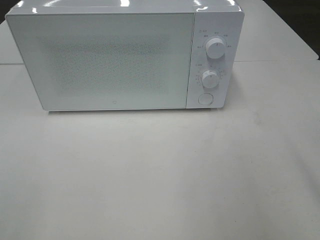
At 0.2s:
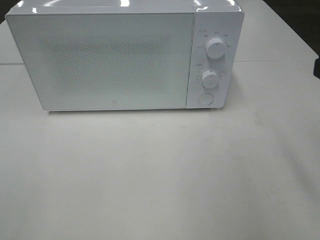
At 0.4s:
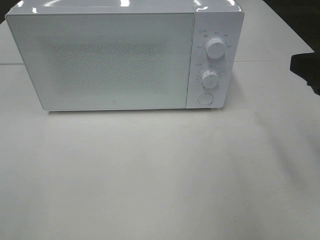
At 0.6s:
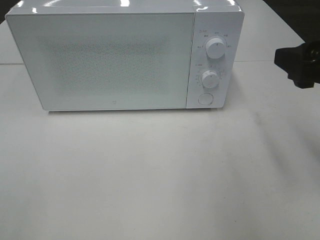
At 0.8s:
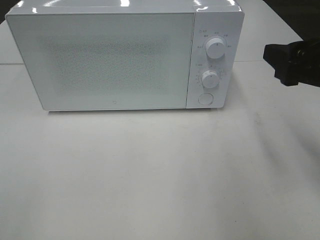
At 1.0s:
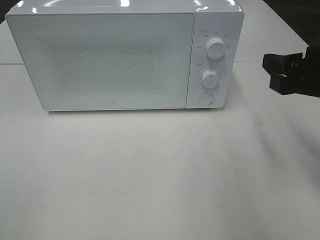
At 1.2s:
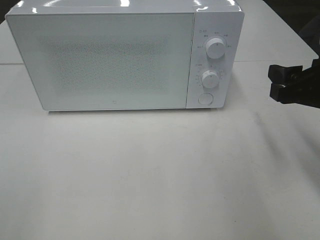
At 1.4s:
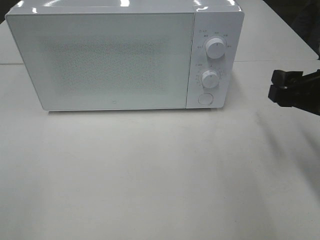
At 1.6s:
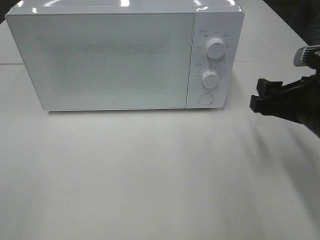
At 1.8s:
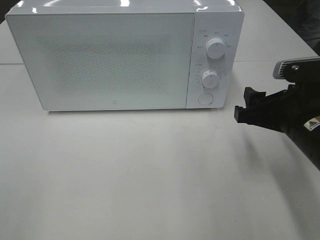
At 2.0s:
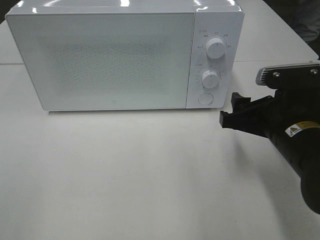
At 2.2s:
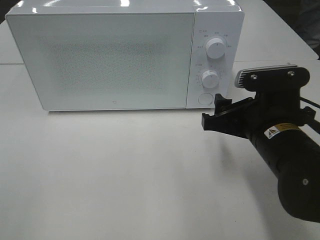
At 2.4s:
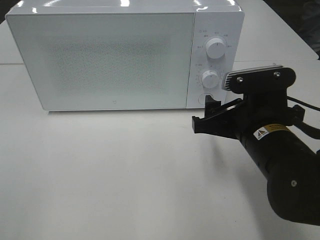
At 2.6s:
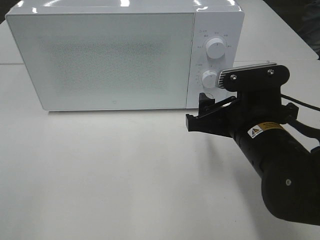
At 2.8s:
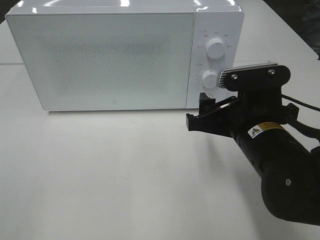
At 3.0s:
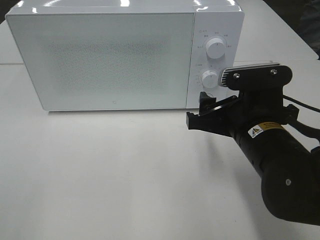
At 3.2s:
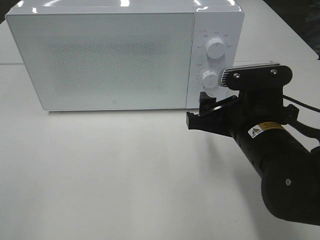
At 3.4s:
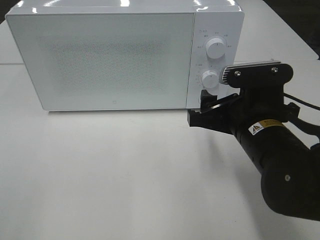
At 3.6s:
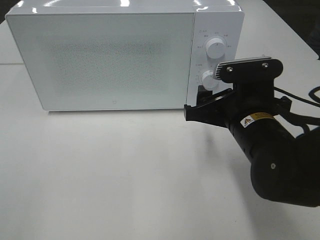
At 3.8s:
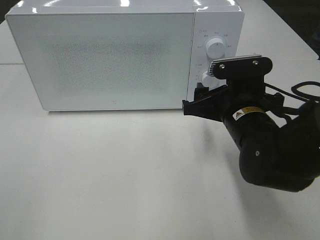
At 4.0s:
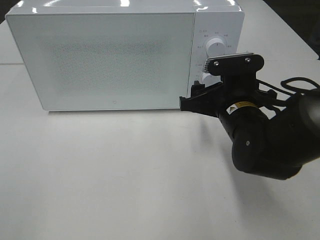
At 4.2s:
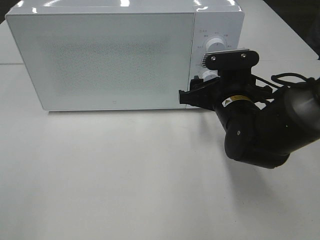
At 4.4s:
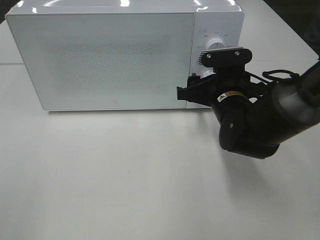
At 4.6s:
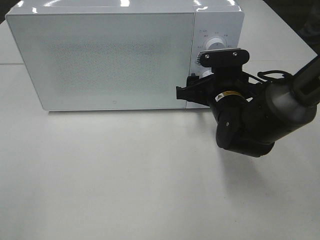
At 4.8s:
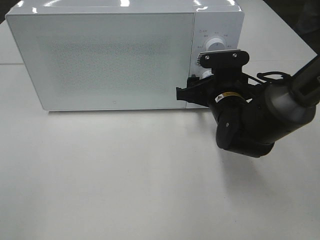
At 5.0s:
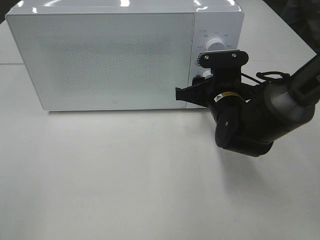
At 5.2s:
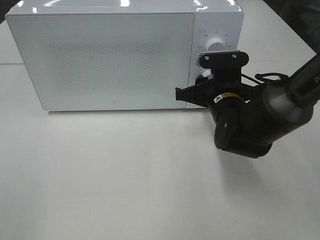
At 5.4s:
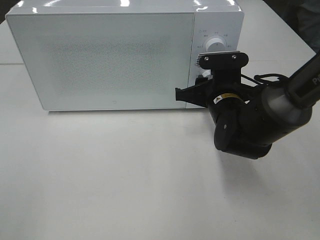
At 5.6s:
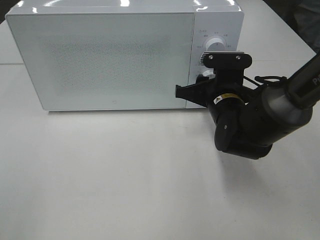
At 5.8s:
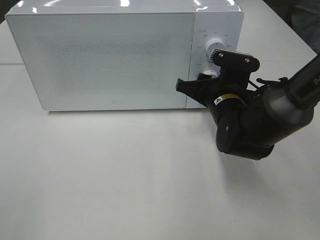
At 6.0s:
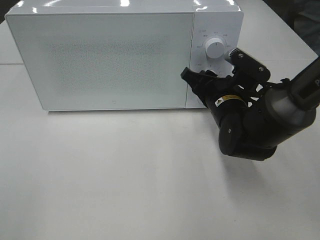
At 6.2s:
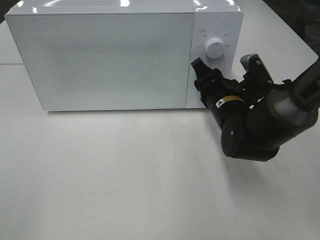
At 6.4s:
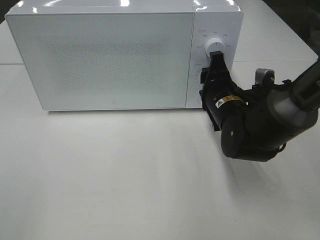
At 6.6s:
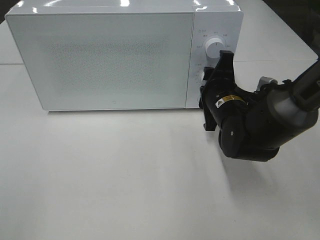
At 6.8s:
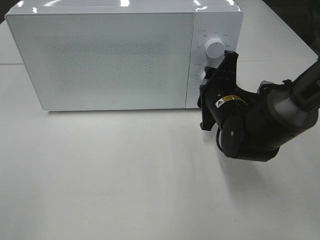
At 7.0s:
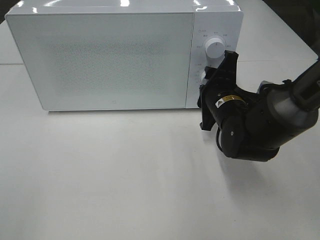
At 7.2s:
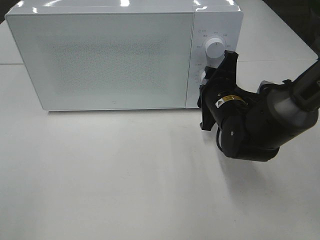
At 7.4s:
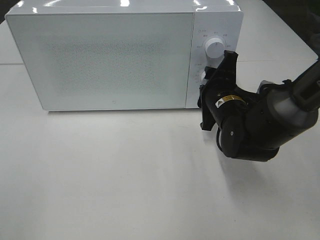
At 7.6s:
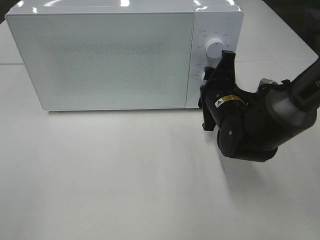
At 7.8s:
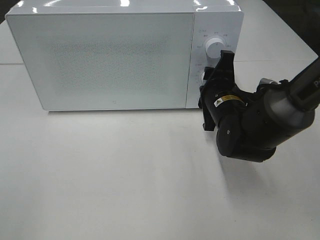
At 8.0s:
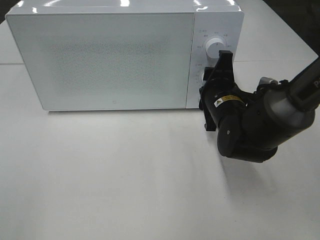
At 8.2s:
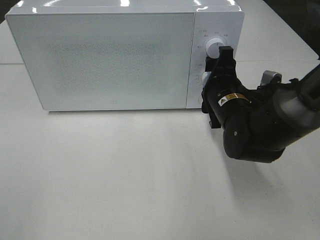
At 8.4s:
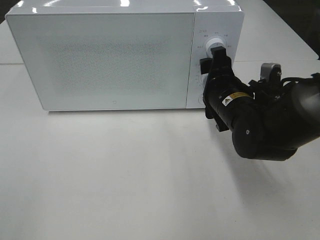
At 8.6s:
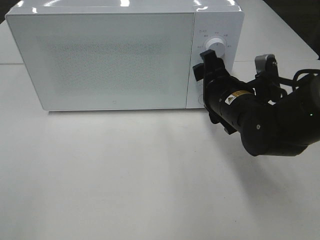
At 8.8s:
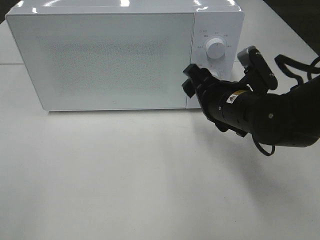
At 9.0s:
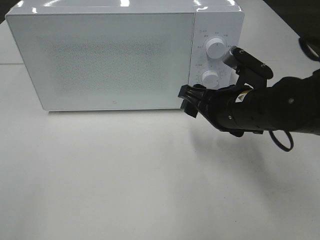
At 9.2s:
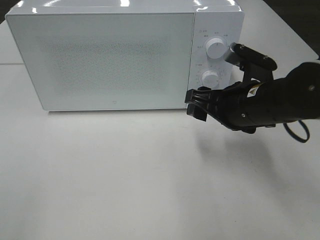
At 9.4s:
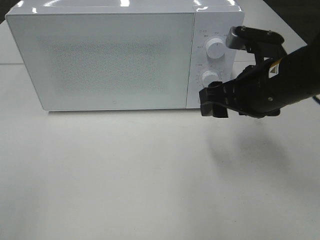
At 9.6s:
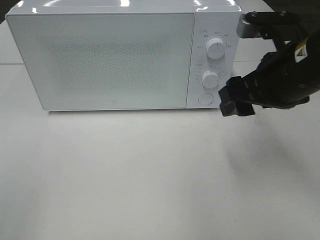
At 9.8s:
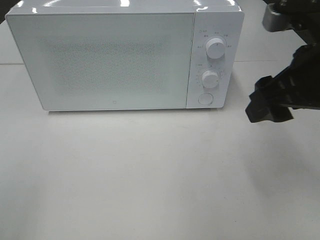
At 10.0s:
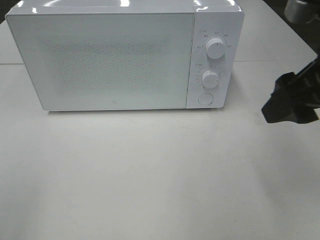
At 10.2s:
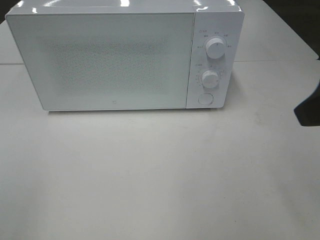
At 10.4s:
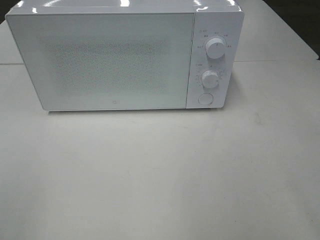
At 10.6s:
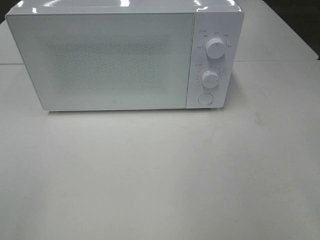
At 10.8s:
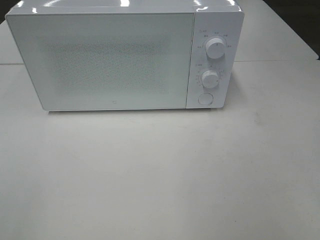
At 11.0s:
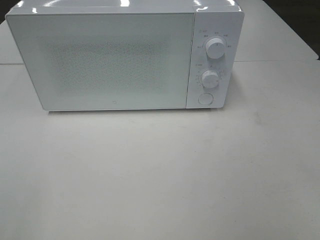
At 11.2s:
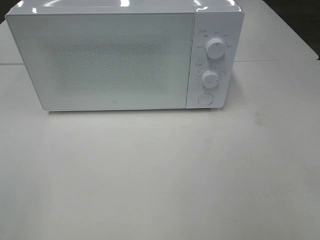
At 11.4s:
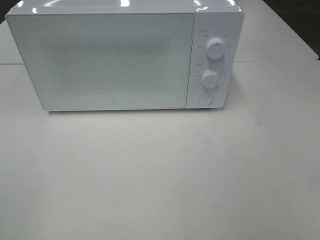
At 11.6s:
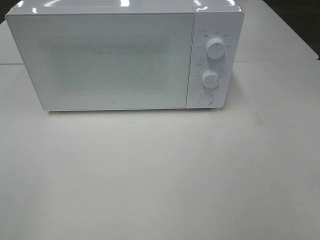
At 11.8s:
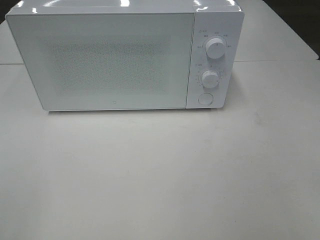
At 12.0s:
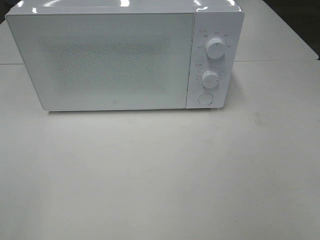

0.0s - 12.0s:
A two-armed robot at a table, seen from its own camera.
Task of the whole recording: Heat the burger.
Step, 0.0s - 8.2s: Right hand: twist timer button.
0.0s - 1.6s: The right gripper goes about 15 cm downward and forward.
1.6s - 3.0s: The right gripper is displaced to the left by approximately 10 cm.
3.0s - 4.4s: The right gripper heads forward, covering about 10 cm.
4.4s - 6.0s: The right gripper closes up.
7.6s - 9.0s: The right gripper is displaced backward by approximately 5 cm, and opens up.
9.0s - 10.4s: The right gripper moves upward, backward and to the right, approximately 25 cm.

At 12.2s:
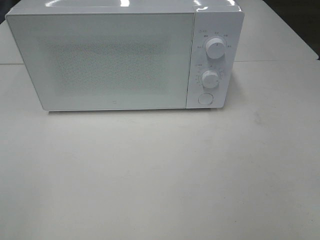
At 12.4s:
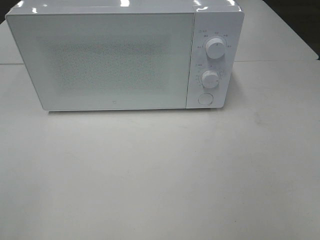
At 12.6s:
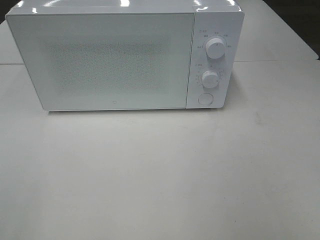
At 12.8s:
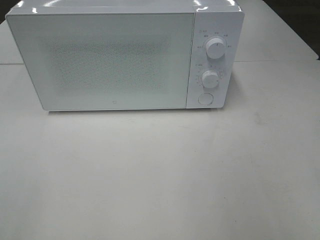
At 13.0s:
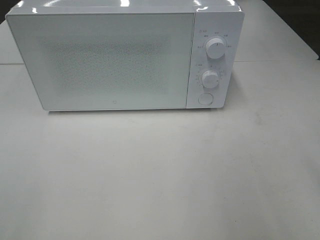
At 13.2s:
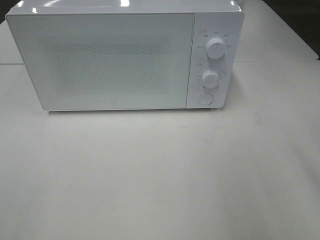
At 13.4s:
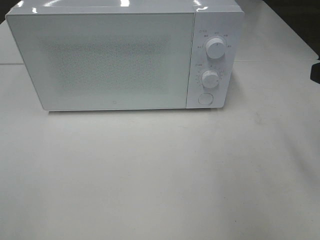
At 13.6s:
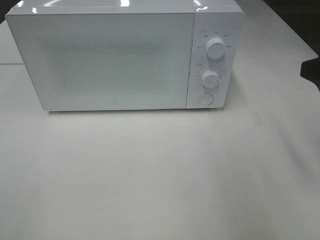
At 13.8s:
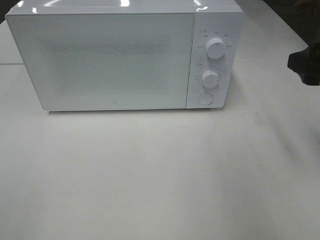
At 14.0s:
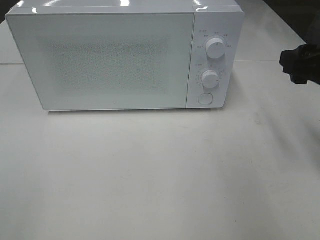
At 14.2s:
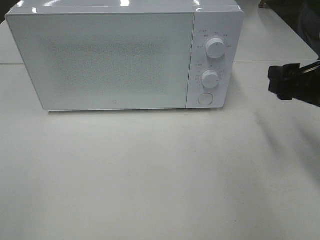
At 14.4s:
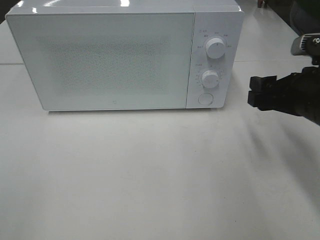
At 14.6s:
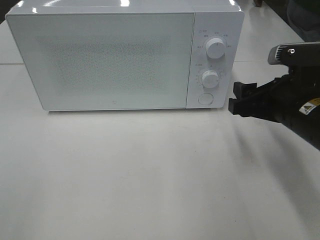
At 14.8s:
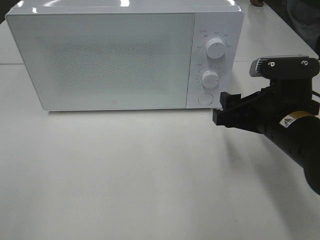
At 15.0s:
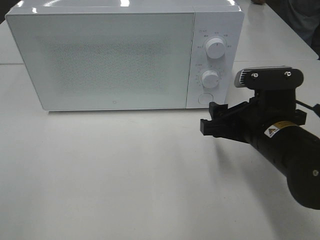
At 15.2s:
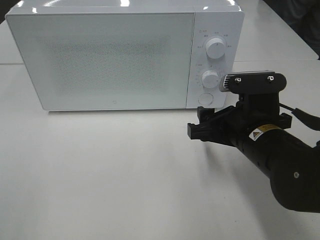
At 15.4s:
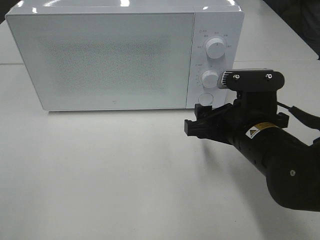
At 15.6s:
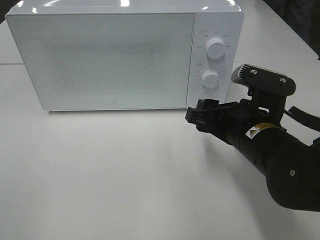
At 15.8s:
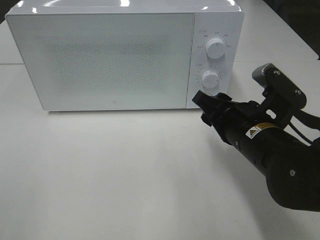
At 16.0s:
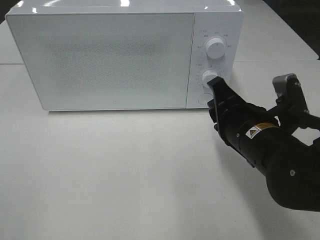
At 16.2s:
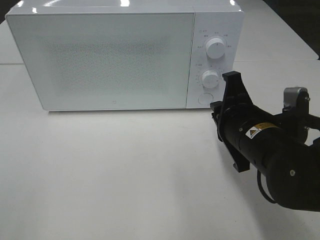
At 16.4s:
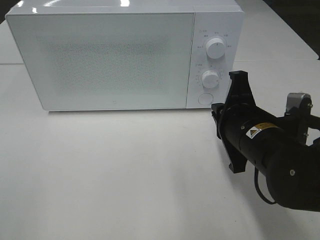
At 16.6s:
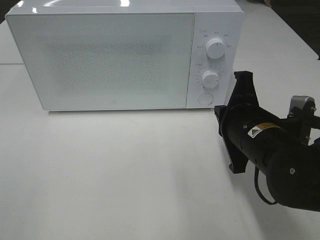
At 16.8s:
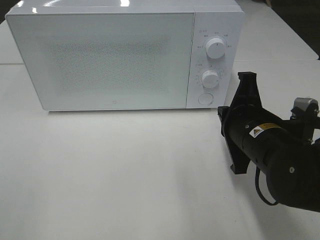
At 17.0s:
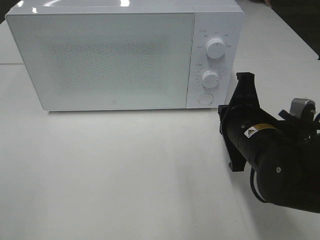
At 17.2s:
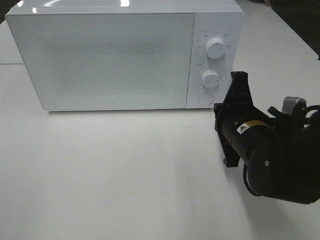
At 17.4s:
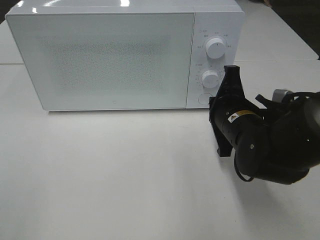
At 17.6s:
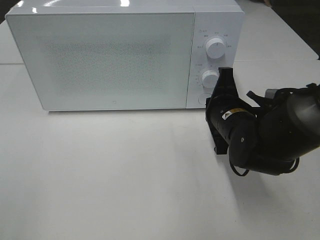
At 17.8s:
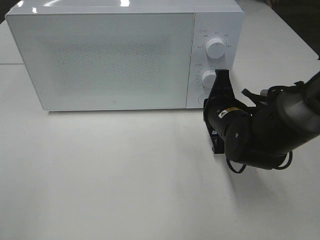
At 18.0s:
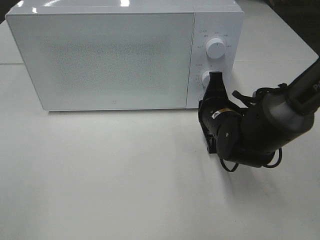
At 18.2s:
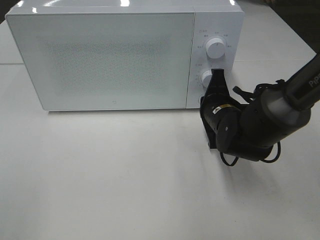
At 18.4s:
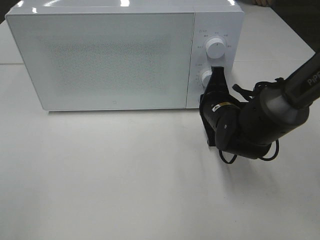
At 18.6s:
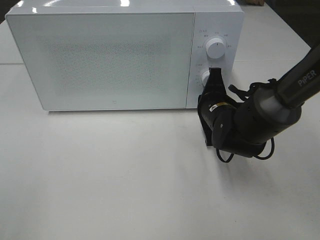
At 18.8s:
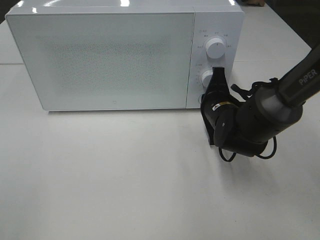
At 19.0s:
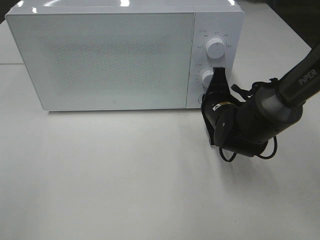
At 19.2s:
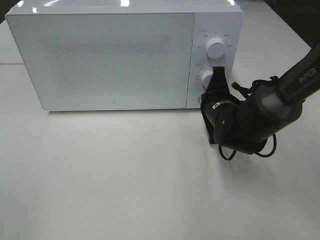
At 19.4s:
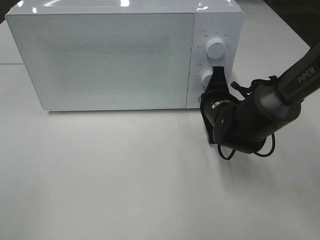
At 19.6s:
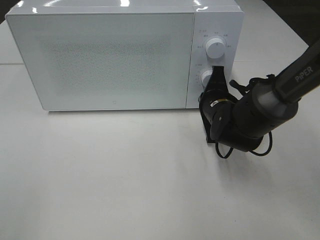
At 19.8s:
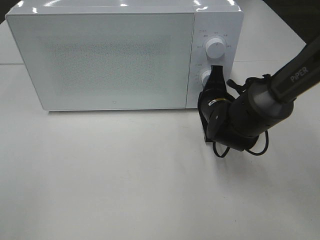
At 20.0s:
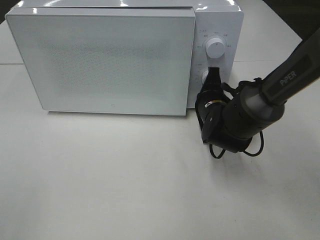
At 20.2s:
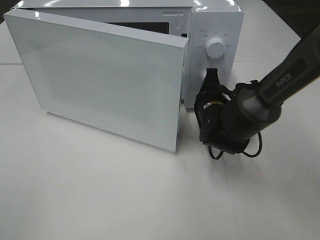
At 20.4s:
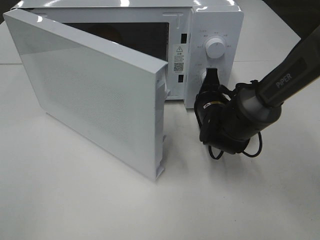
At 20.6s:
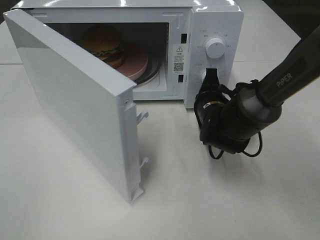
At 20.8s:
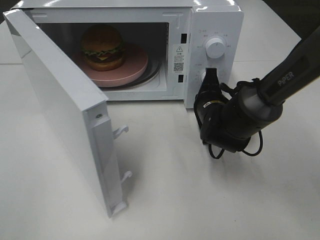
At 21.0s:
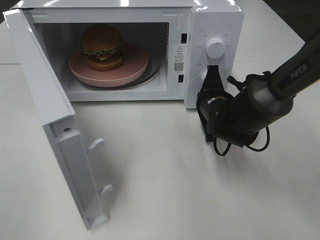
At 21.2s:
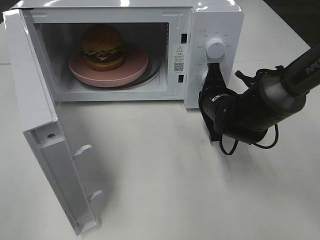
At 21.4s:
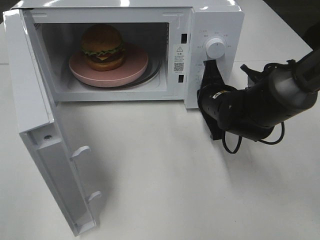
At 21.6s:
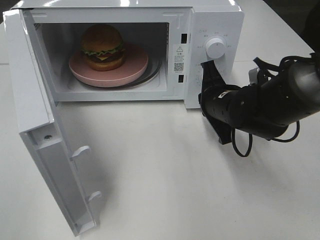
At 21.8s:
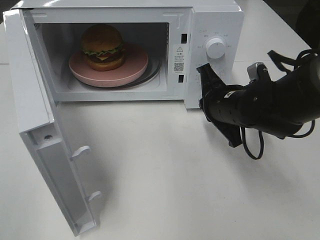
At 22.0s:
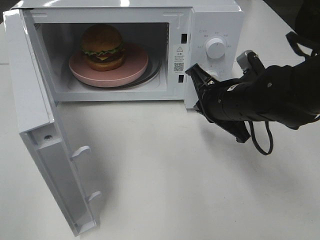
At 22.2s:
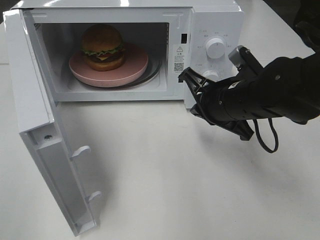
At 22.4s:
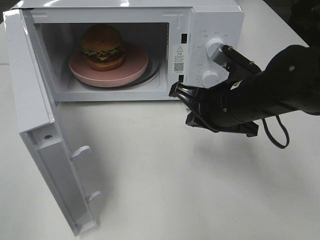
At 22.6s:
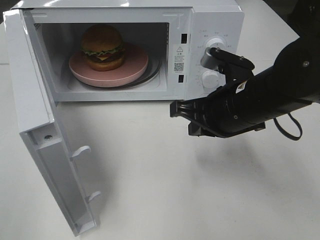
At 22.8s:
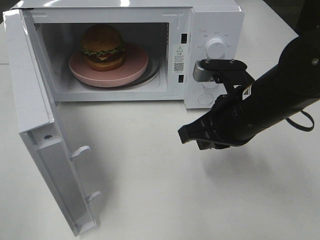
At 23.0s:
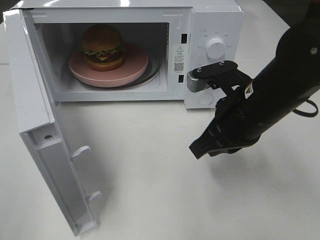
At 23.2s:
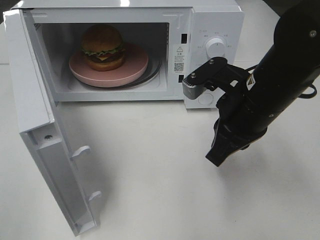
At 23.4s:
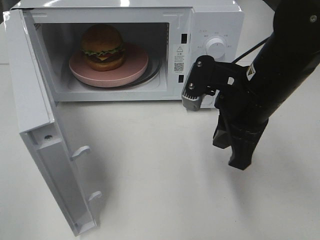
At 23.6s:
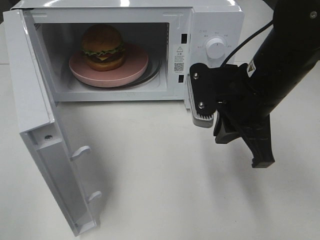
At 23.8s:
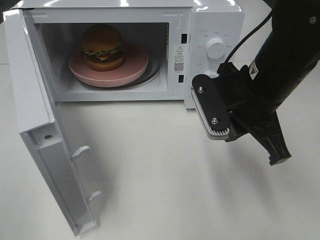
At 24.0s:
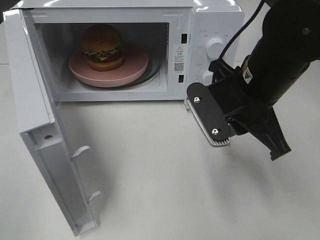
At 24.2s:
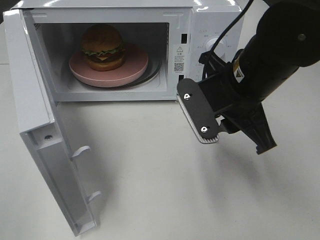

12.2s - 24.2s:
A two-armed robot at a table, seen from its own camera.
Task of the whole recording: Heat the burger.
Step, 12.2s - 21.2s: Right hand: press the switch.
12.2s - 13.8s: The right gripper travels forward by about 20 cm.
13.8s - 15.2s: The right gripper goes some 15 cm to the left and downward.
15.2s - 16.6s: The right gripper closes its fingers.
16.6s - 18.2s: The right gripper moves forward and downward, some 10 cm.
18.2s - 19.8s: There are only small adjustments of the grippers.
21.2s - 22.6s: The right gripper shifts approximately 10 cm backward and upward.
22.6s - 24.2s: The right gripper opens up.
